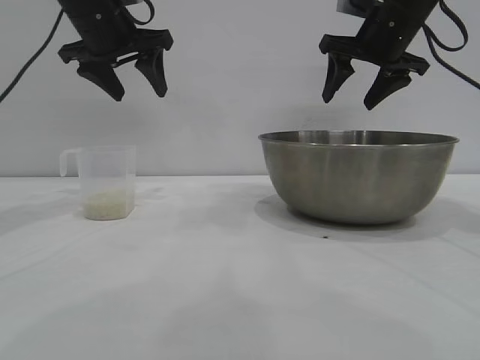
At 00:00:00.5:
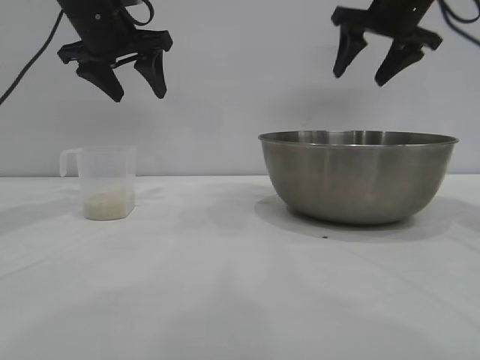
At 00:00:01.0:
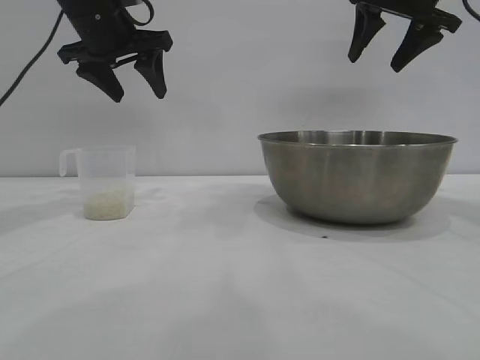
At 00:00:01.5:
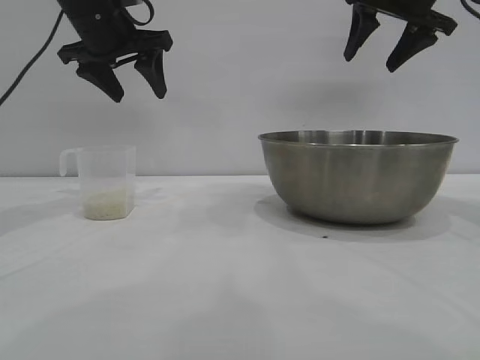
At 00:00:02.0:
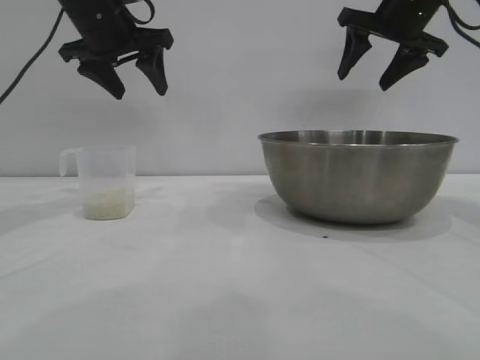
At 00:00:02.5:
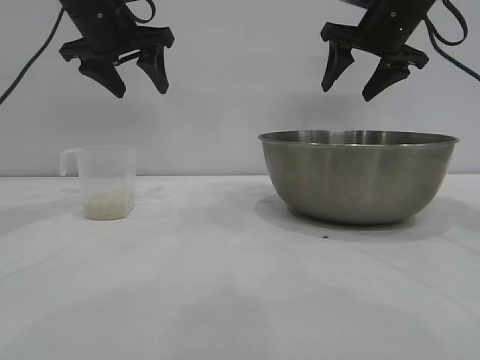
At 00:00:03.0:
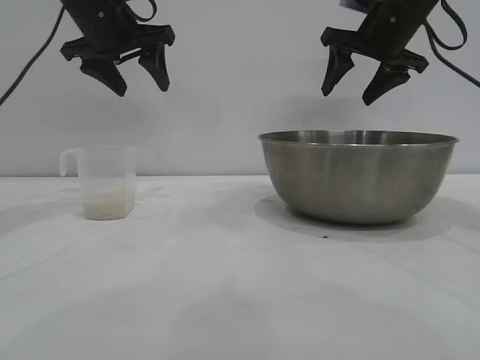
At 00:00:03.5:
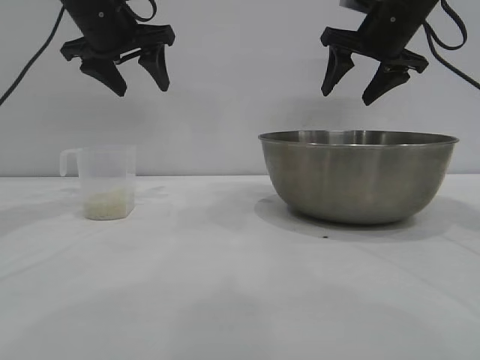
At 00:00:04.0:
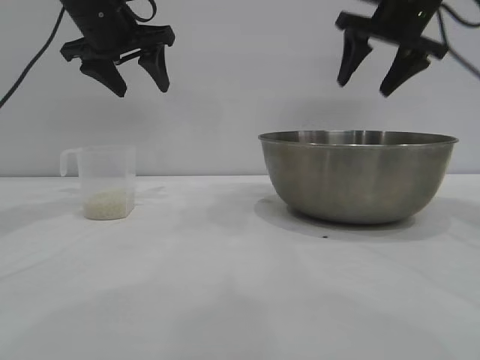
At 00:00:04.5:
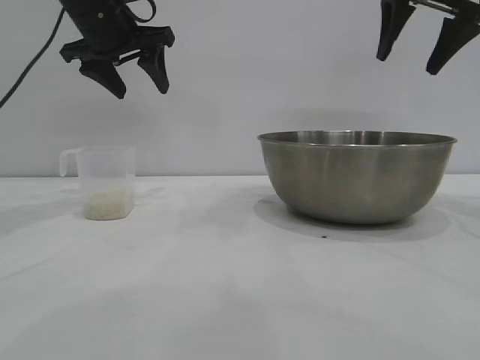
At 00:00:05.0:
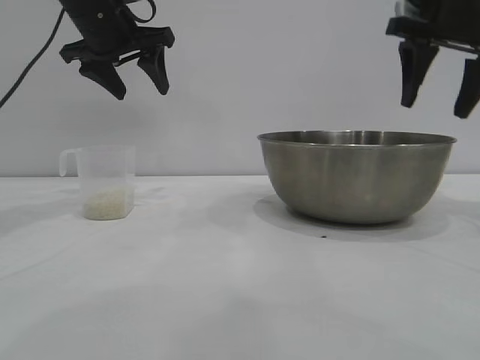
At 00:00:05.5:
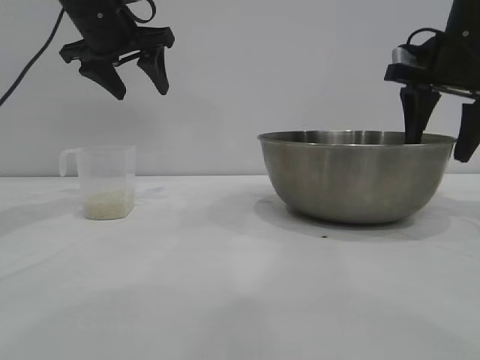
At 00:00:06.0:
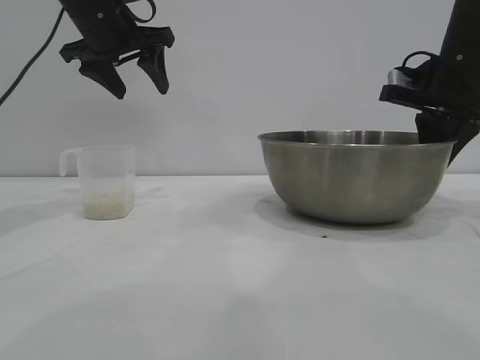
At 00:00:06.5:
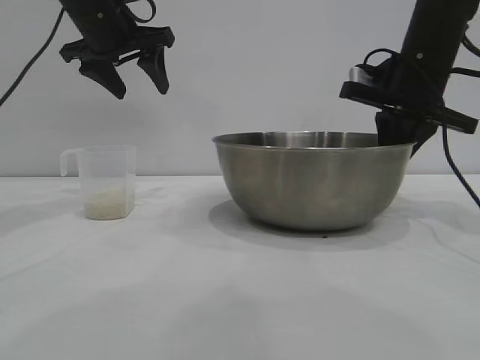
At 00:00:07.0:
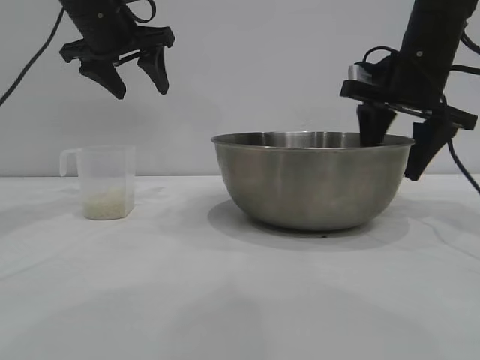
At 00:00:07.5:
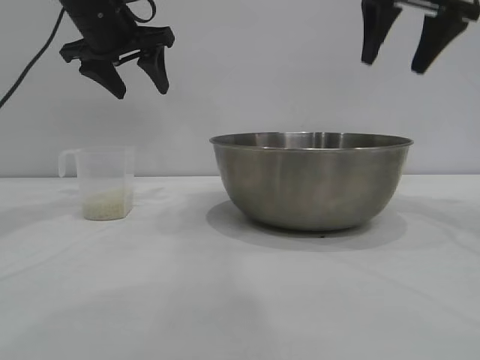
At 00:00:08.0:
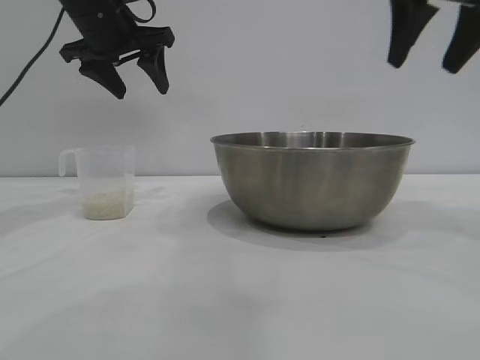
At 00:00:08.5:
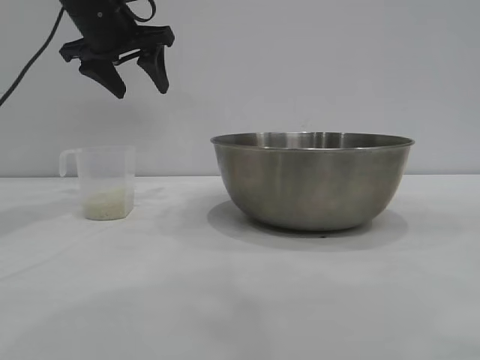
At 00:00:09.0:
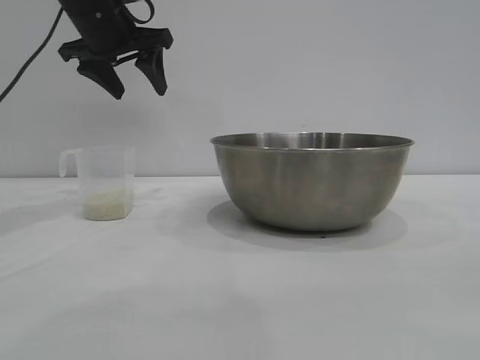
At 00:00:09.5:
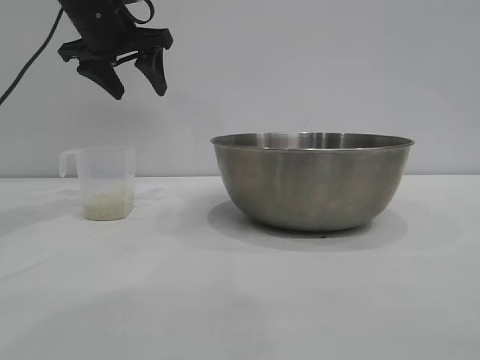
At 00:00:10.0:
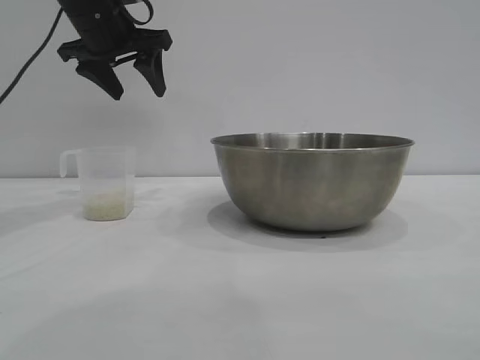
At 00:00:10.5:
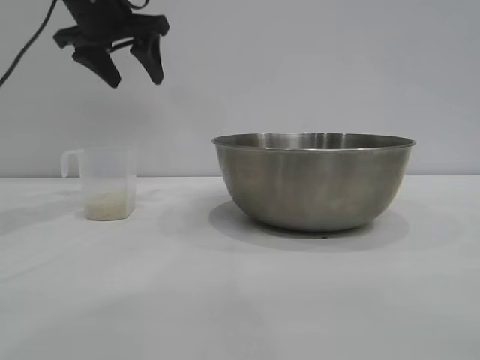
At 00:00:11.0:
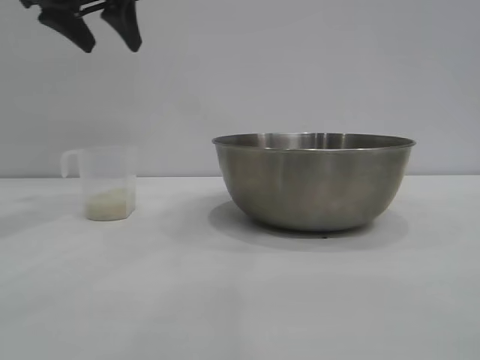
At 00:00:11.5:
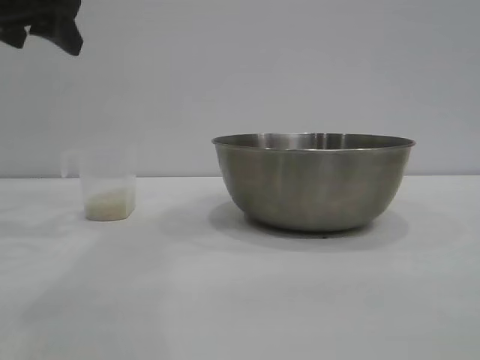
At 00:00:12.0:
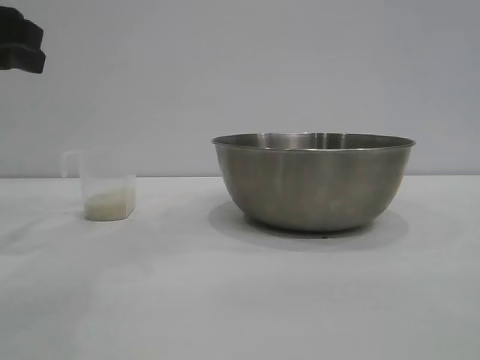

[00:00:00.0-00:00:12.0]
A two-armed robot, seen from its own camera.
Task of the whole recording: the right gripper grasp the rice container and place it in the center of the table, the left gripper grasp the rice scoop and pour the rice into the rice container.
Step, 00:00:00.0 to 00:00:07.0: Move the bowl to the center of view with the right gripper.

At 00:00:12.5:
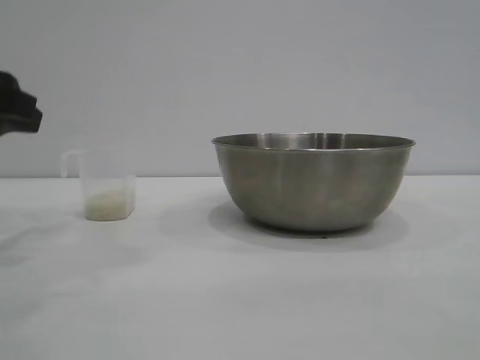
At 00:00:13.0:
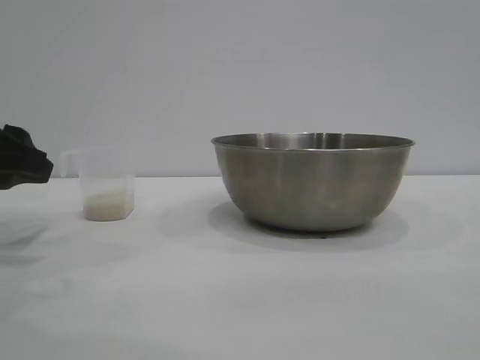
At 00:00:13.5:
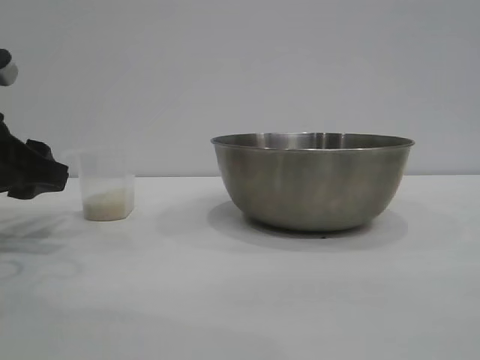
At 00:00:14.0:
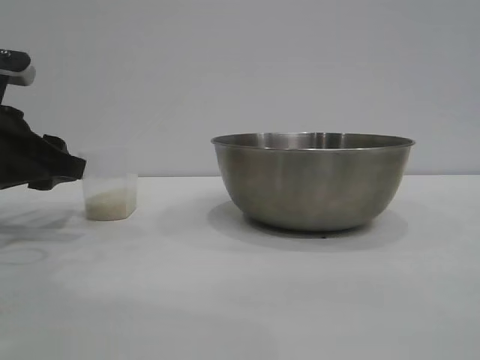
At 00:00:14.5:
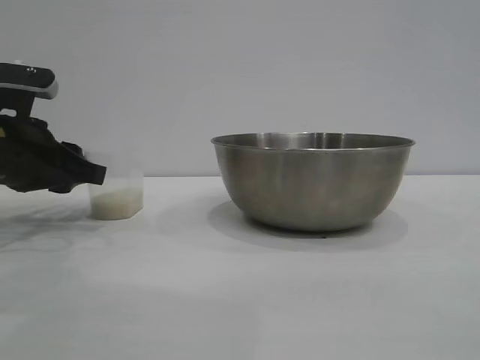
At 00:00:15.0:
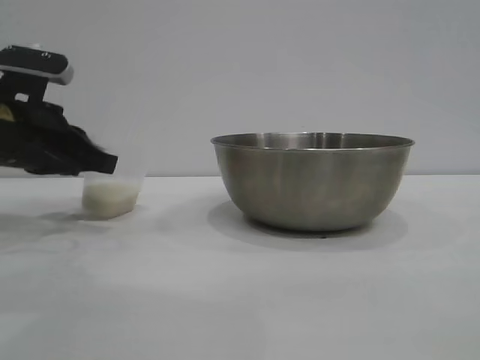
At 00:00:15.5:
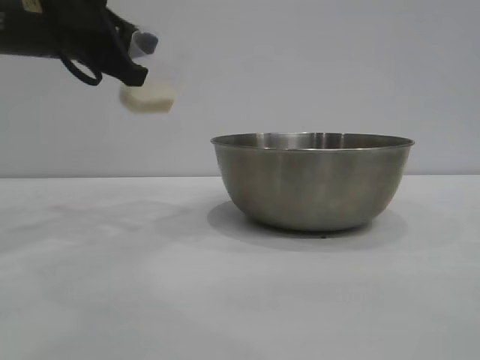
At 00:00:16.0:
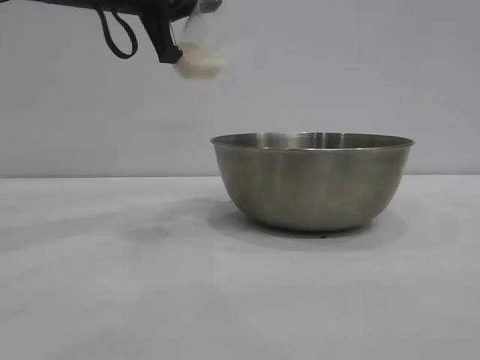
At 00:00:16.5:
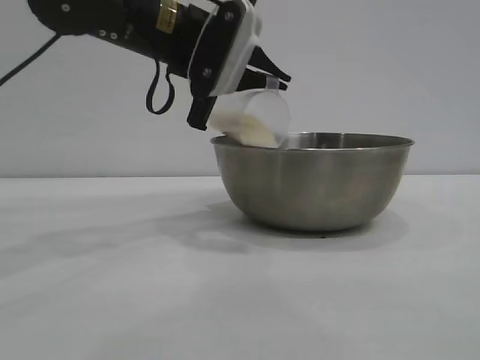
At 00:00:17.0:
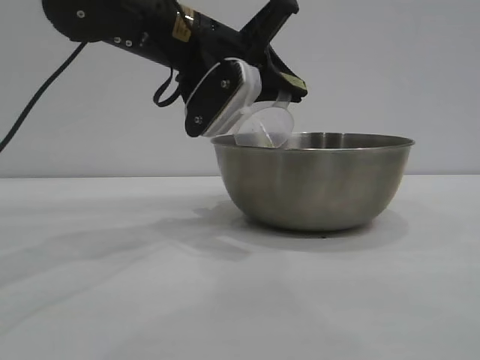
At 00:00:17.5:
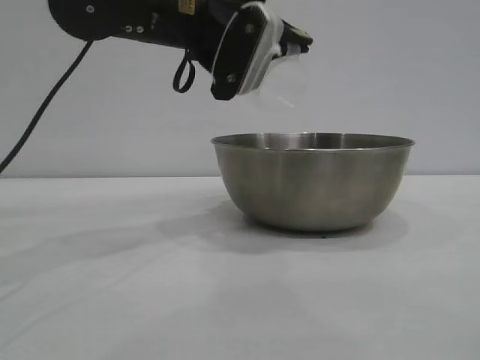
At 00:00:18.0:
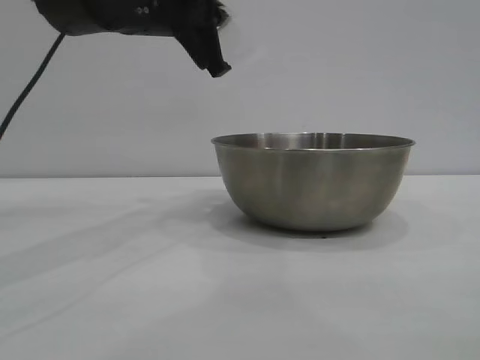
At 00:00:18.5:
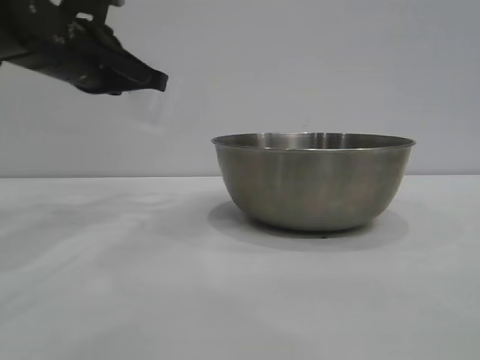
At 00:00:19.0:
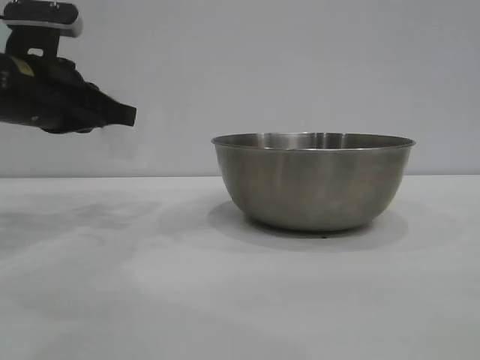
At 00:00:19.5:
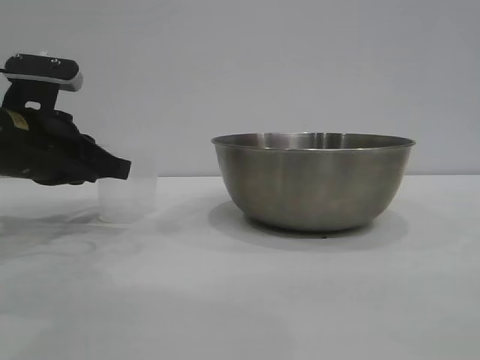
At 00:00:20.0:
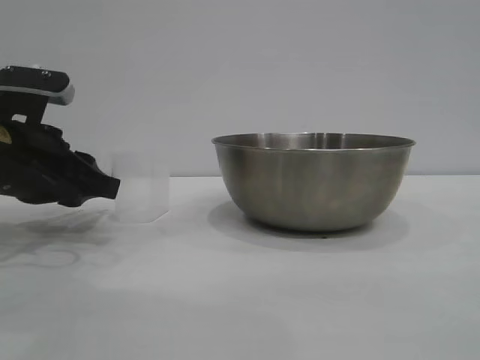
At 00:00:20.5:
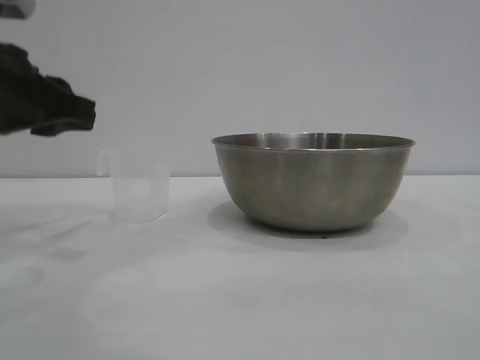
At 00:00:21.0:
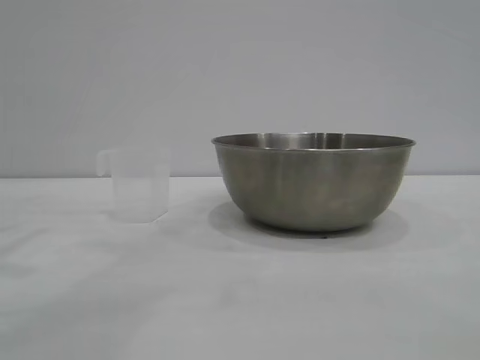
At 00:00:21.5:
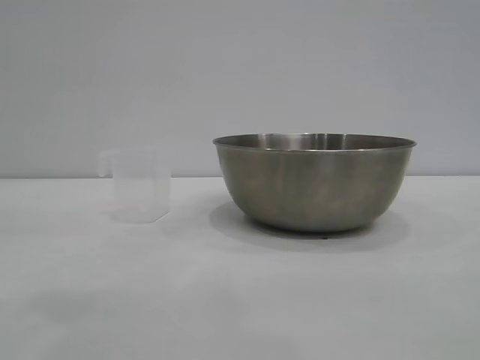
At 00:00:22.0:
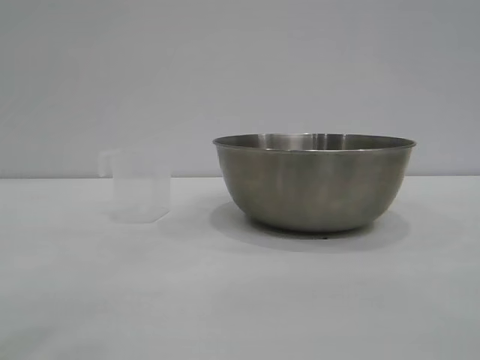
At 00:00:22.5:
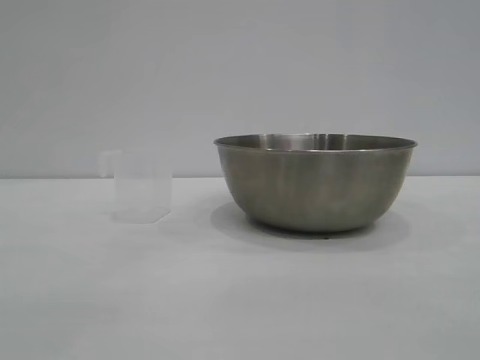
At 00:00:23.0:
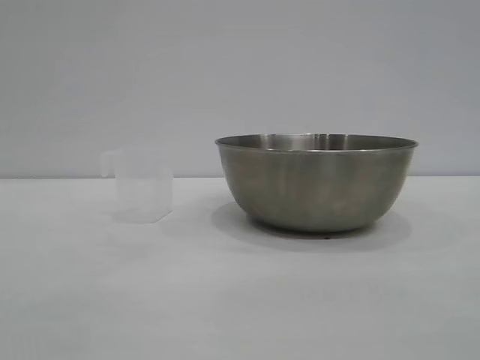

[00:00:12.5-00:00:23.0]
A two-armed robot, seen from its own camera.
Task of the whole recording: the right gripper grasp the rice container and place it in the center of the table, the left gripper grasp the rice scoop and pour the rice into the rice container.
Step, 00:00:12.5 to 00:00:15.0: Pick up the cup with rice in it with the left gripper.
Step, 00:00:15.5 to 00:00:17.0: Pour the rice from the cup into the bowl with the left gripper.
Step, 00:00:17.5 to 00:00:20.0: Place the cup on the table with the left gripper.
